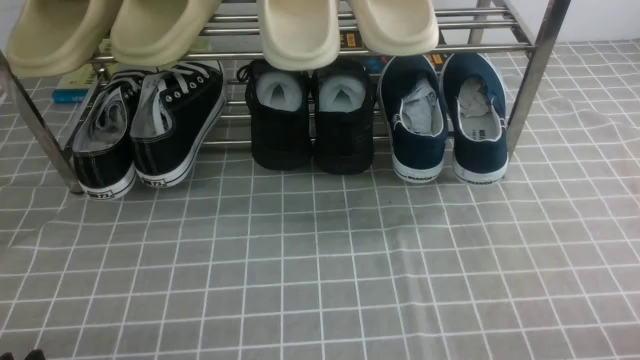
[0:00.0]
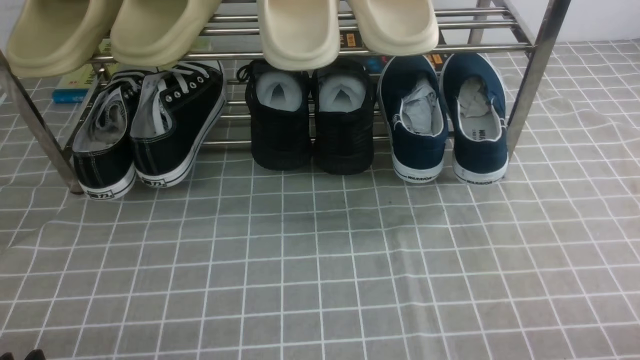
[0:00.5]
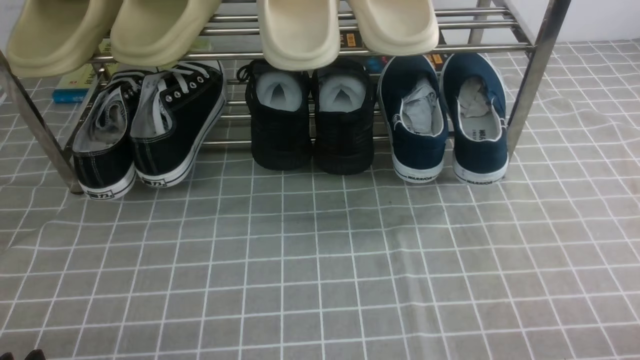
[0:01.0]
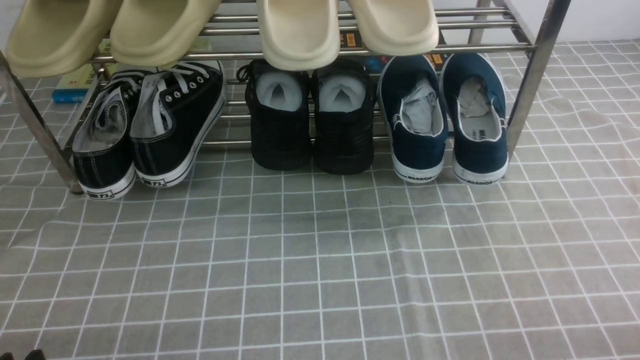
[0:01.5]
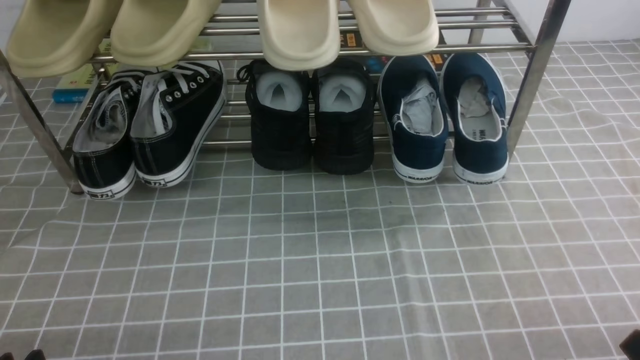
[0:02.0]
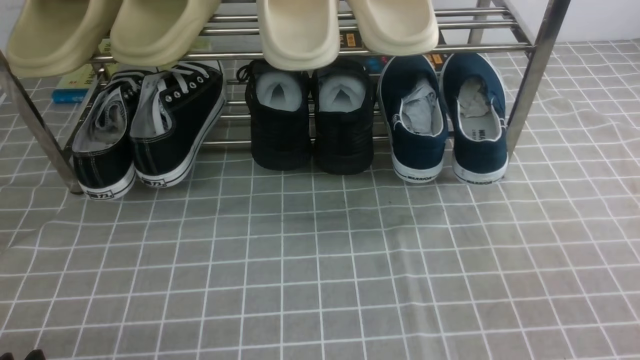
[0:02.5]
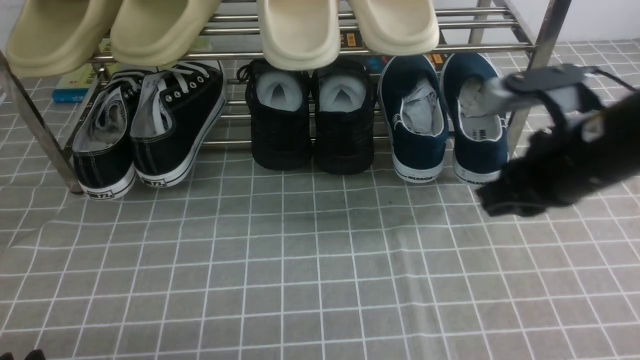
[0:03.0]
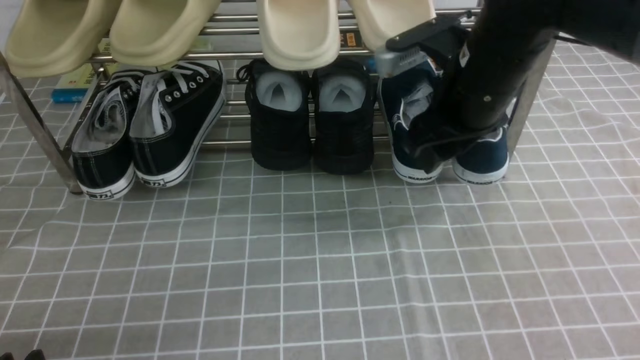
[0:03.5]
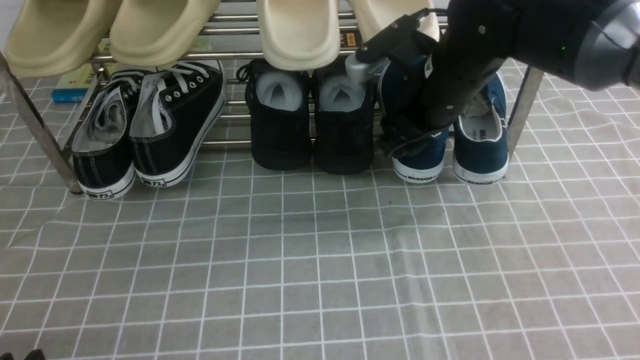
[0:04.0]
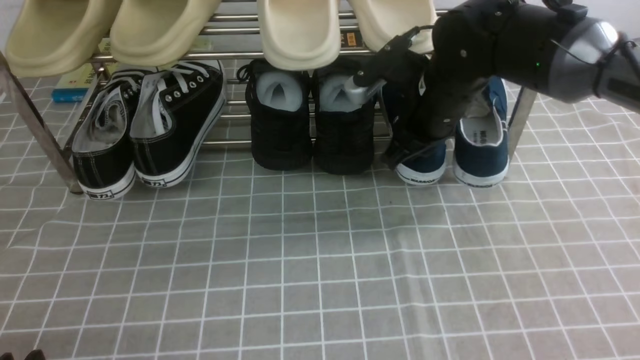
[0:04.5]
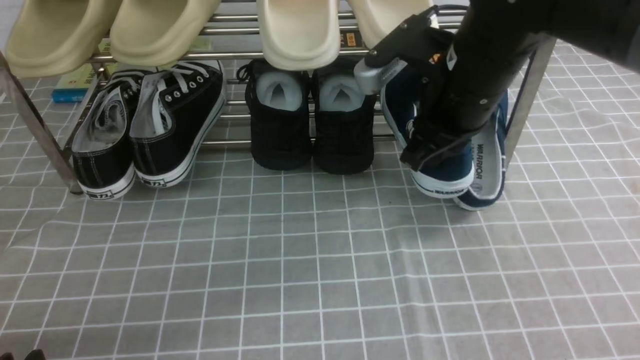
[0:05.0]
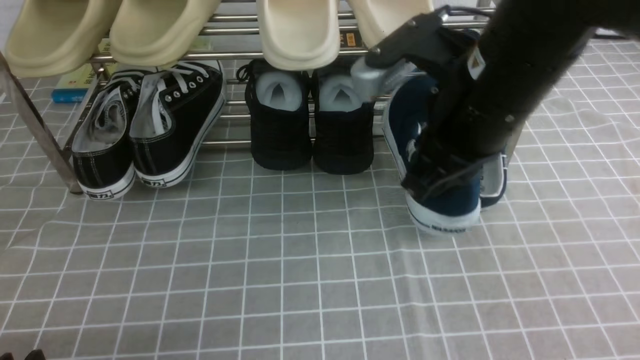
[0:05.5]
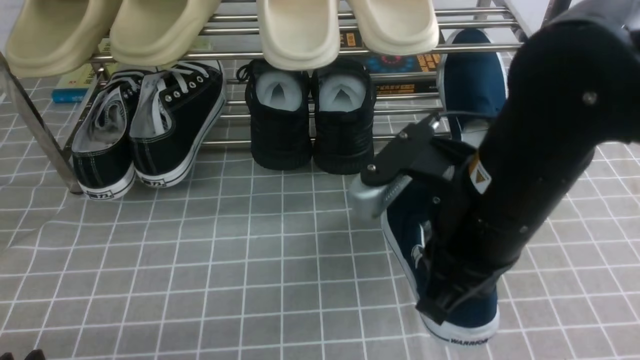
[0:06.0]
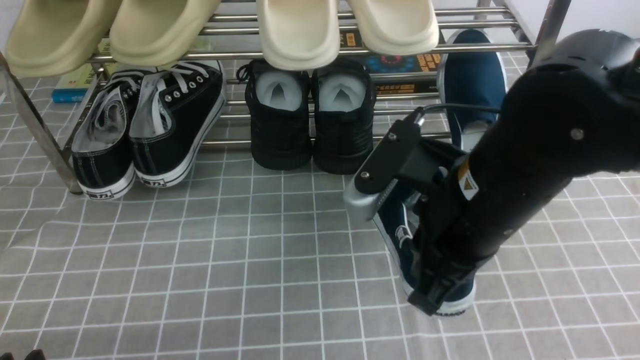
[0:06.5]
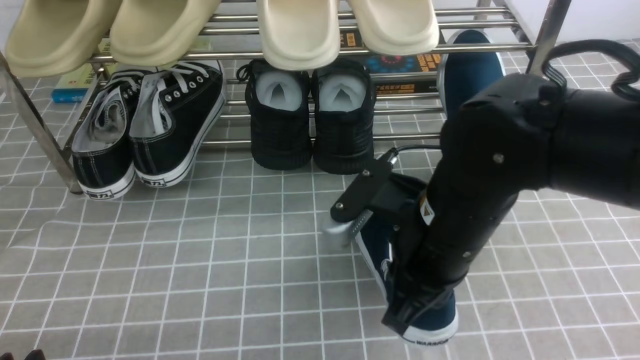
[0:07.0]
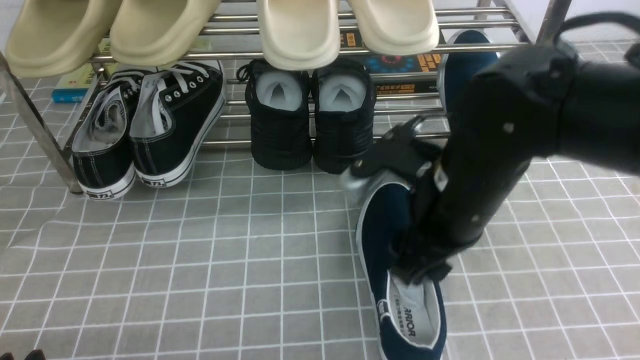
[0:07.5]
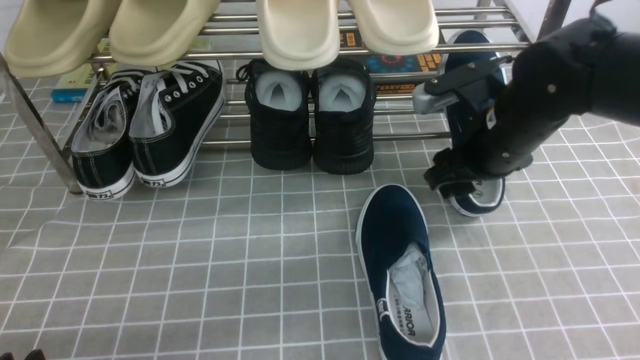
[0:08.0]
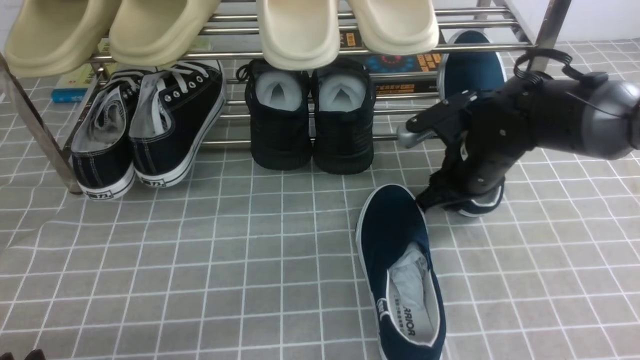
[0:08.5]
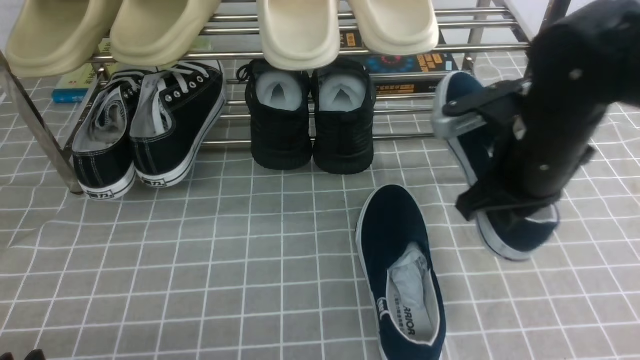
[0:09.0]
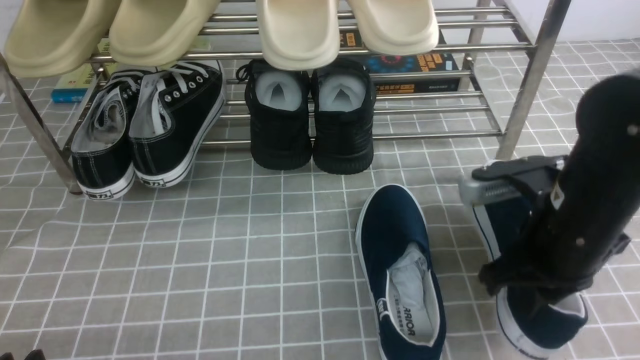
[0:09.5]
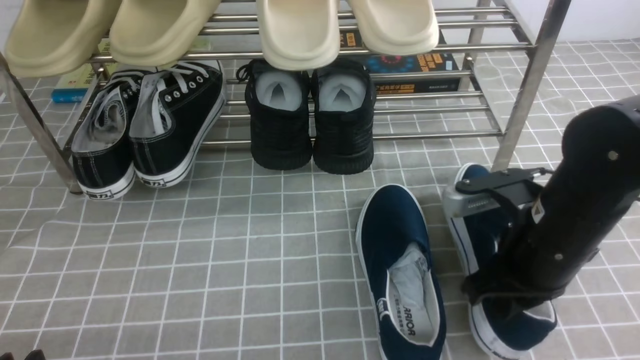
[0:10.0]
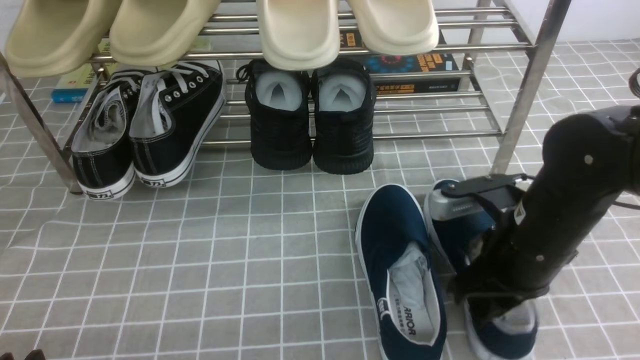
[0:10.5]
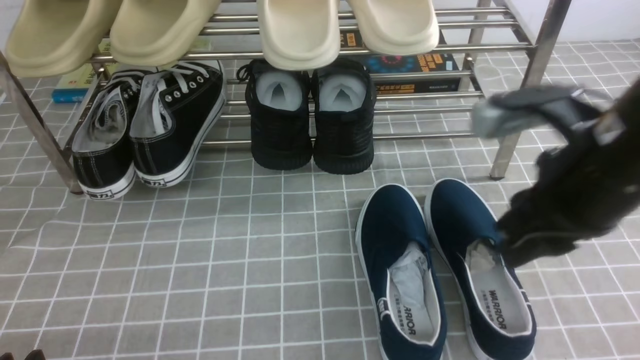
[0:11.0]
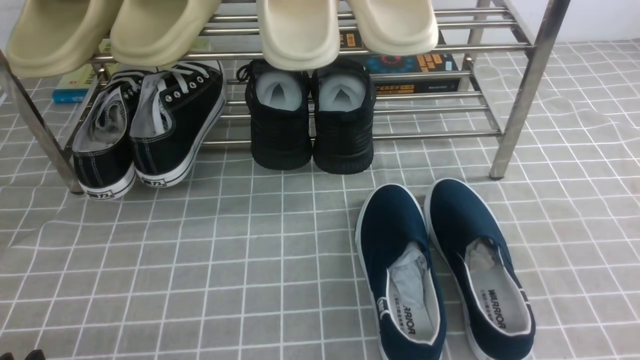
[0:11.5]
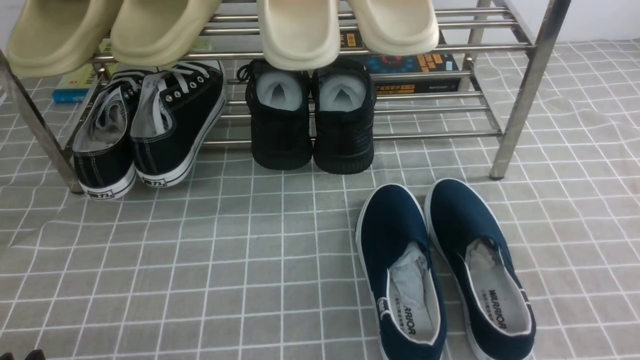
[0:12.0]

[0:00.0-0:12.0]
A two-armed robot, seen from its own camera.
Step, 0:00.0 to 0:04.5: use the right arm to clamp a shoe on the right side of the shoe rack.
Step, 0:05.0 to 0:07.0: use the right arm to take out the clamped shoe from the shoe rack and put it down.
Step, 0:08.0 to 0:08.5: use the right arm to clamp a shoe on the right side of the shoe rack.
Step, 0:09.0 to 0:10.5: use the right arm to take out the clamped shoe from the shoe rack and put it down.
0:02.0 to 0:04.0: The right gripper is displaced forward and to the left by about 40 cm, and opens.
0:04.0 to 0:06.0: The right gripper goes about 15 cm backward, and closes up.
0:06.0 to 0:08.0: The right gripper goes roughly 15 cm forward, downward and to the right, and opens up.
0:08.0 to 0:10.0: The right gripper shifts approximately 10 cm backward, and closes its fingers.
0:10.0 to 0:12.0: The right gripper shifts approximately 25 cm backward, to the right and upward.

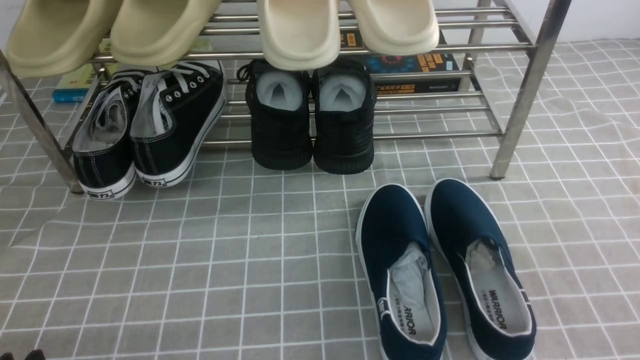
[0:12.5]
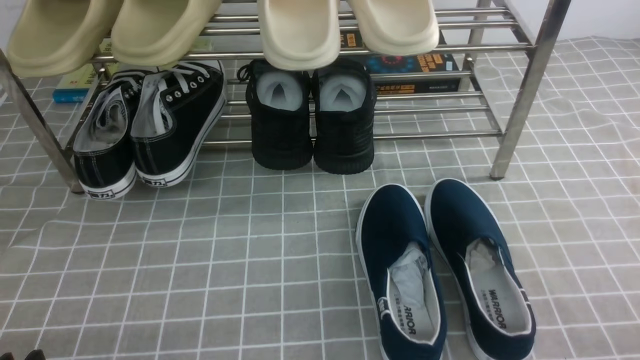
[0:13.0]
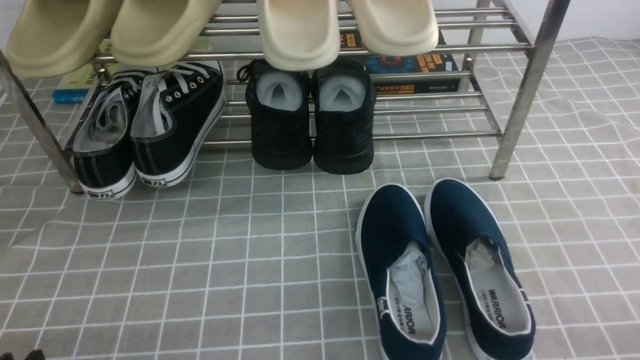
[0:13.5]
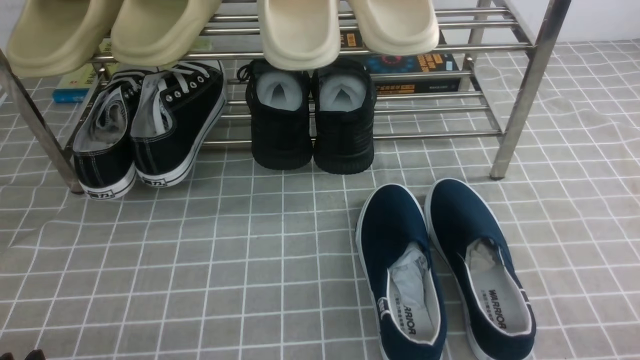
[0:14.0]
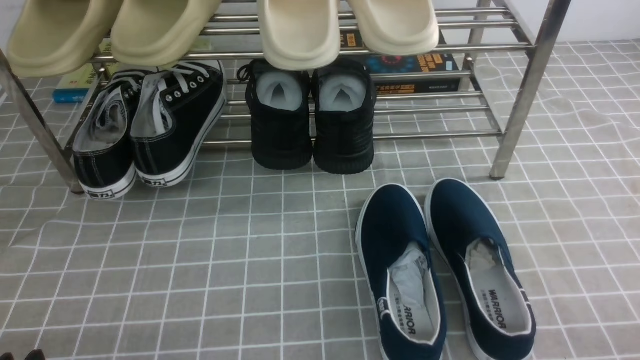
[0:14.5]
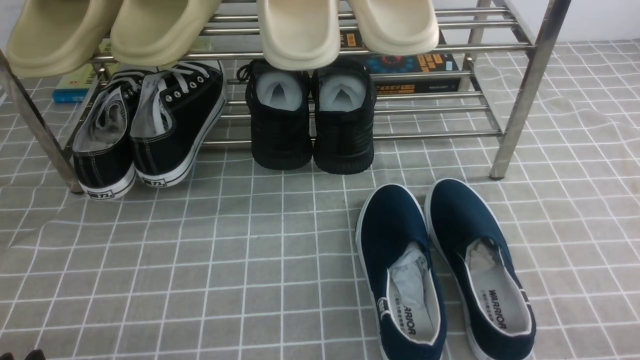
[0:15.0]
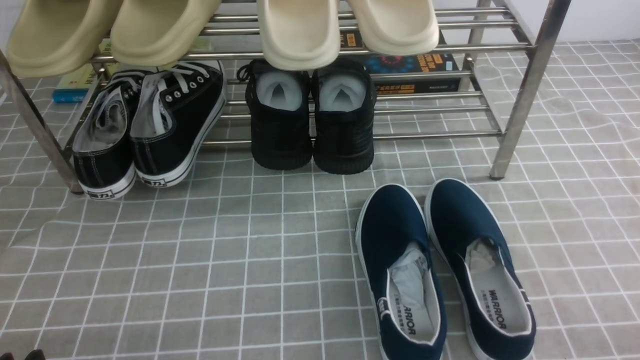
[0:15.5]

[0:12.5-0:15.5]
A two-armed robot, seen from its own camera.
0:14.0 to 0:15.5: Both grippers stay put.
